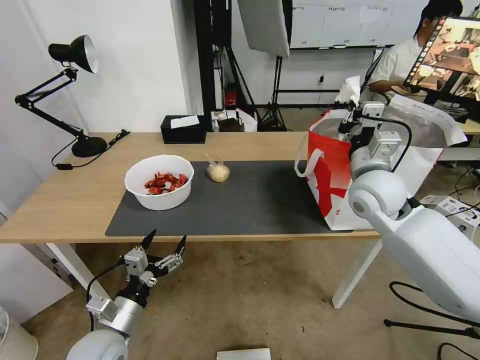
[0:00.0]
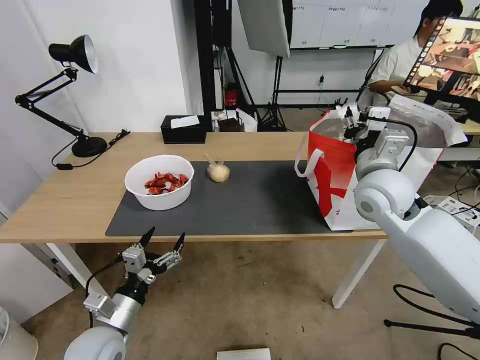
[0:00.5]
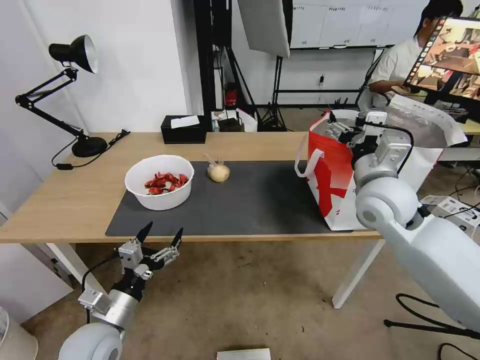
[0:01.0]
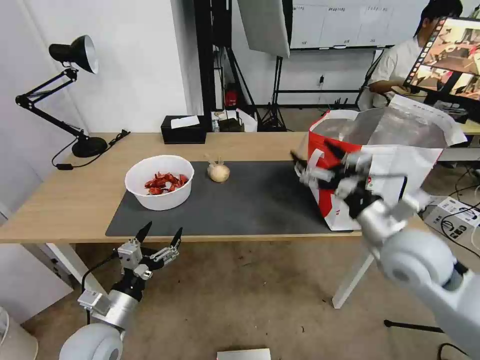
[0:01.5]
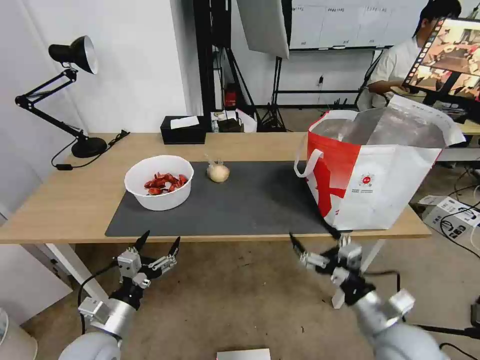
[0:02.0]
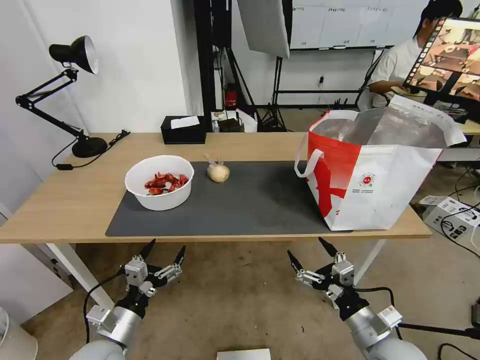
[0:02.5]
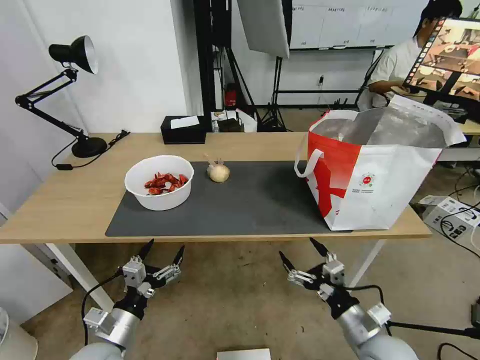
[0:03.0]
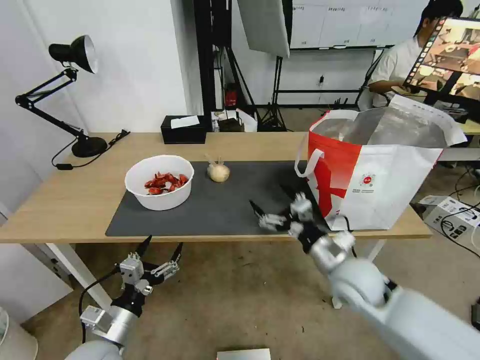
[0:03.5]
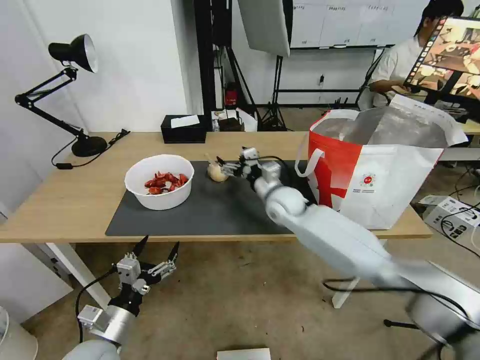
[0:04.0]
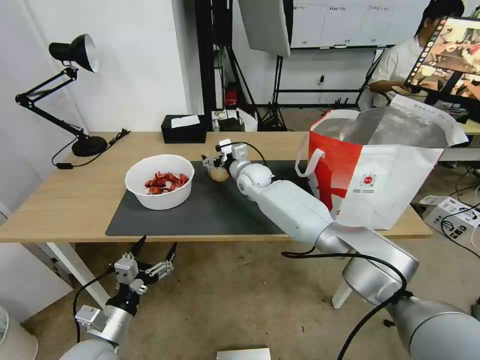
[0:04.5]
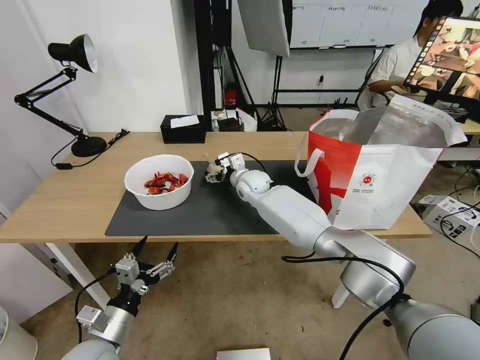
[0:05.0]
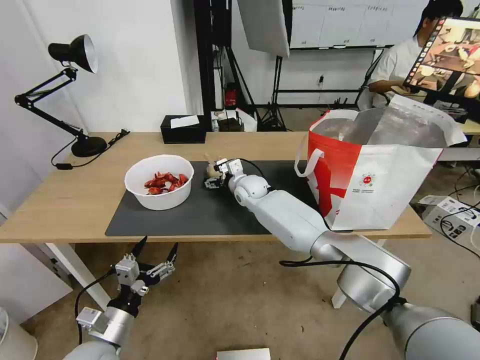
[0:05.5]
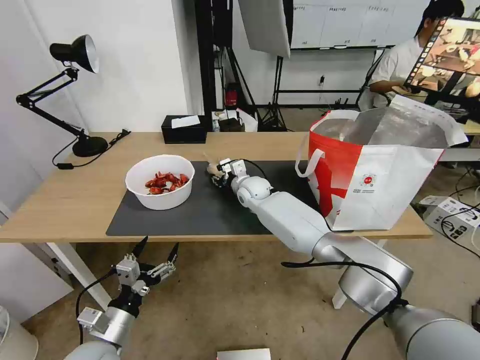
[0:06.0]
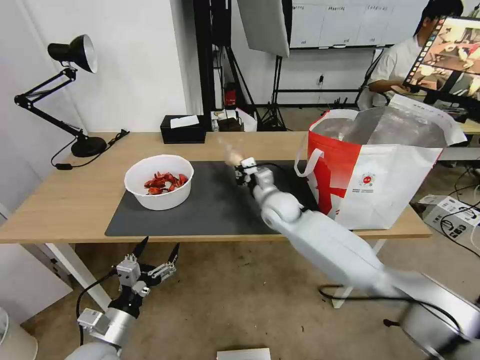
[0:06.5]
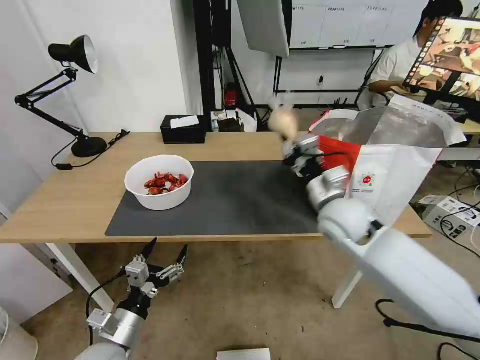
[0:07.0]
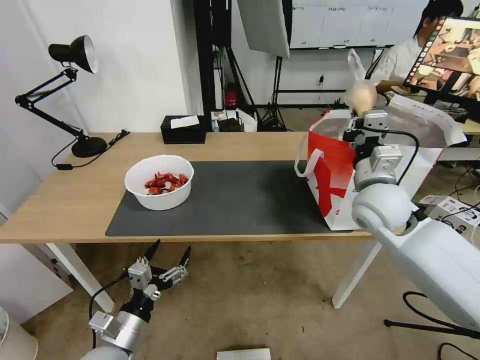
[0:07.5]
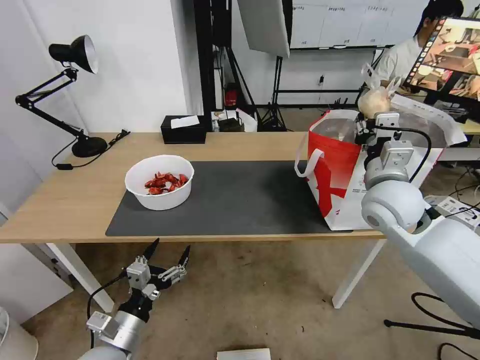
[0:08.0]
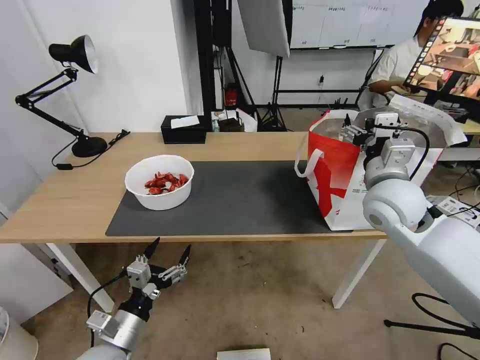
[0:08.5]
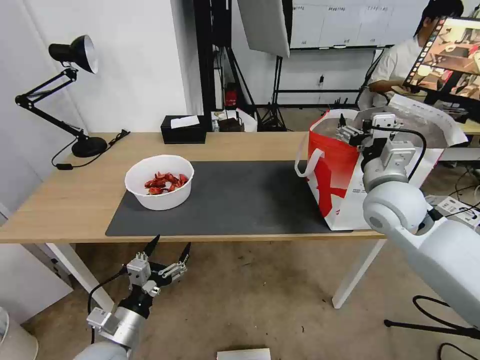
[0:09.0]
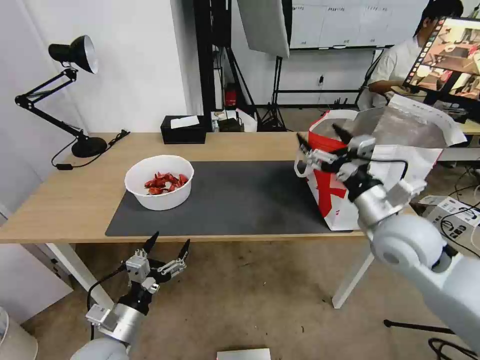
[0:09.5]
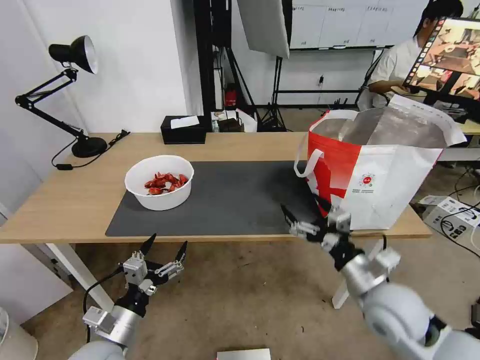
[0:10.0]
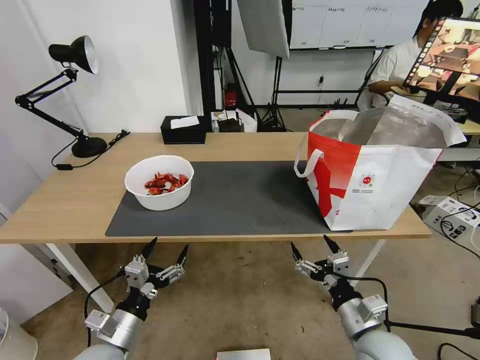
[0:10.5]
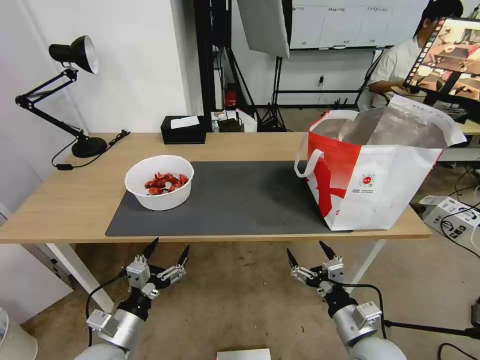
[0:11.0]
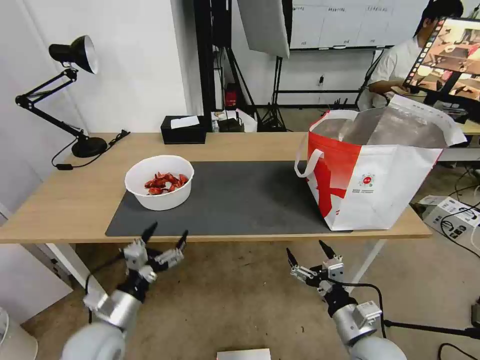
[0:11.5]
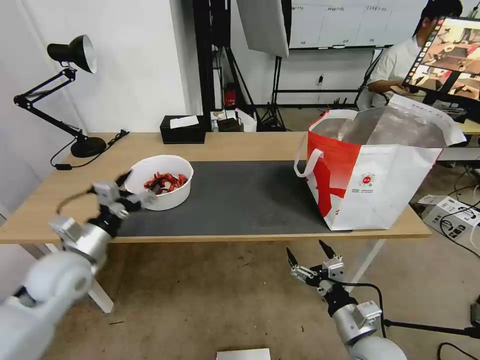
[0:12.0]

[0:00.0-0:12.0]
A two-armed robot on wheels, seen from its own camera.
Task of the whole recording: Pick up the trash from the table and place it into the takeout bag.
0:00.0 to 0:02.0: The right gripper is displaced backward and downward by about 30 cm, and opens its fingers.
0:02.0 to 0:04.0: The right gripper moves forward and to the left, approximately 35 cm.
0:04.0 to 0:06.0: The right gripper is displaced forward and to the left by approximately 10 cm, and closes up.
0:06.0 to 0:08.0: The right gripper is displaced to the right, backward and upward by roughly 35 cm, and closes and opens again.
0:08.0 to 0:10.0: The right gripper shifts about 20 cm backward and downward, and opens up.
0:10.0 to 0:12.0: The right gripper is displaced downward and backward by roughly 10 cm. Meanwhile the left gripper moves forward, upward and to the left, some 20 cm.

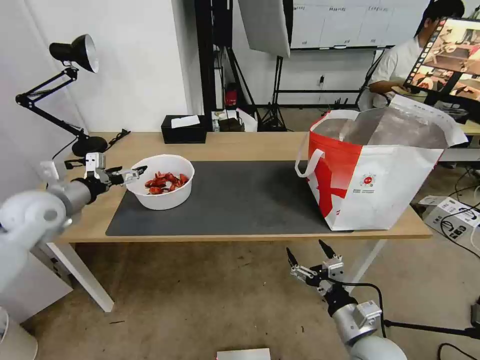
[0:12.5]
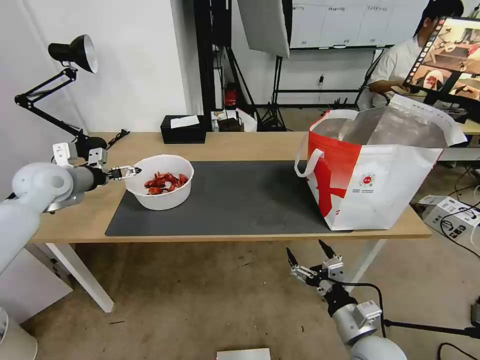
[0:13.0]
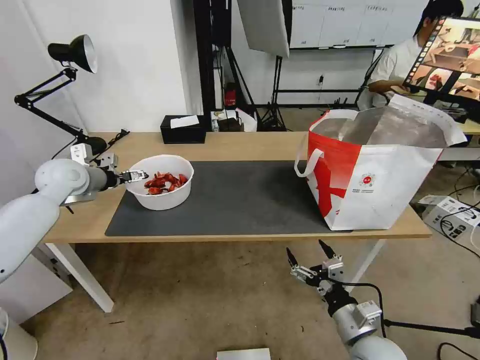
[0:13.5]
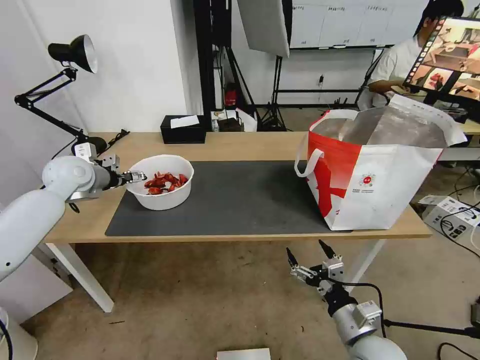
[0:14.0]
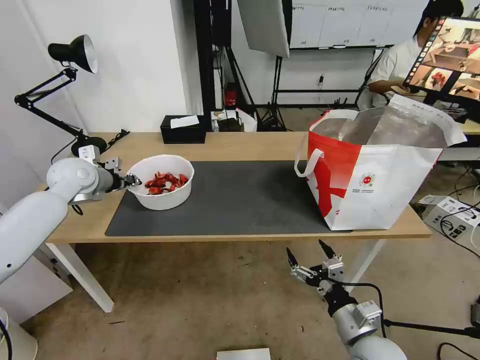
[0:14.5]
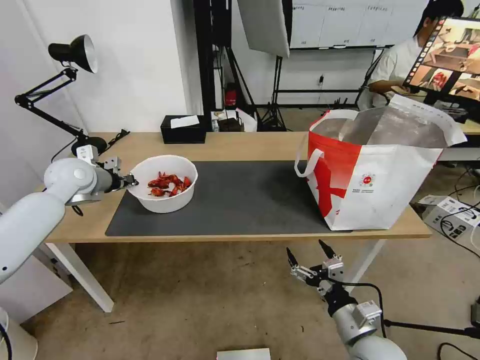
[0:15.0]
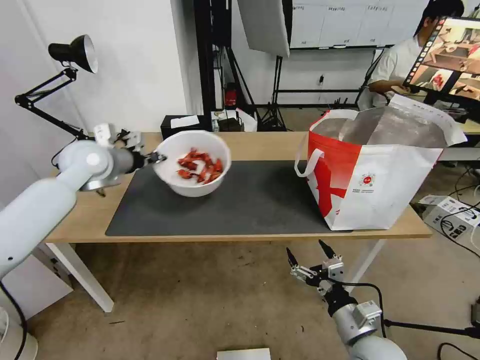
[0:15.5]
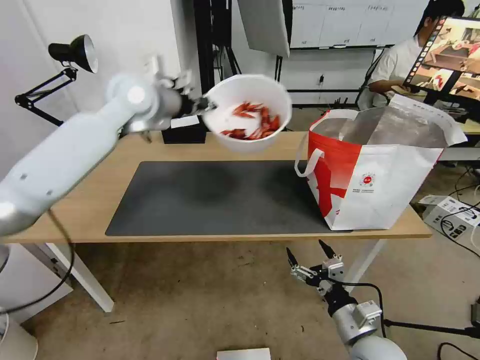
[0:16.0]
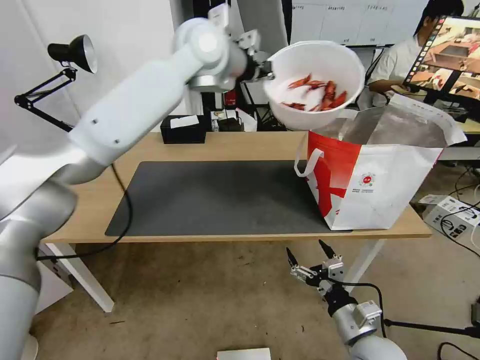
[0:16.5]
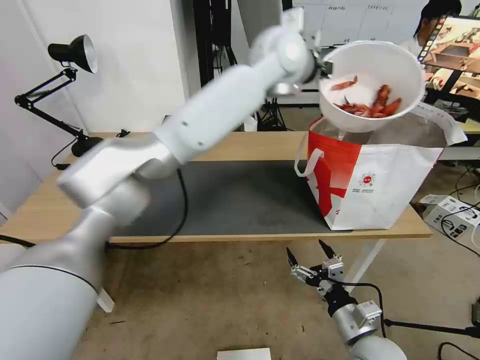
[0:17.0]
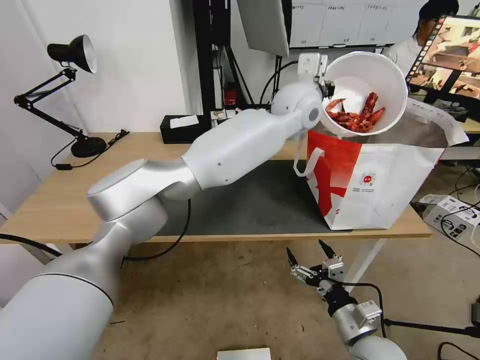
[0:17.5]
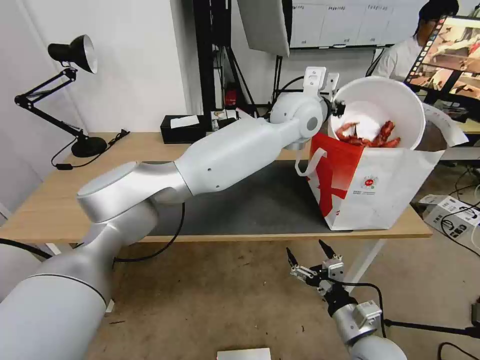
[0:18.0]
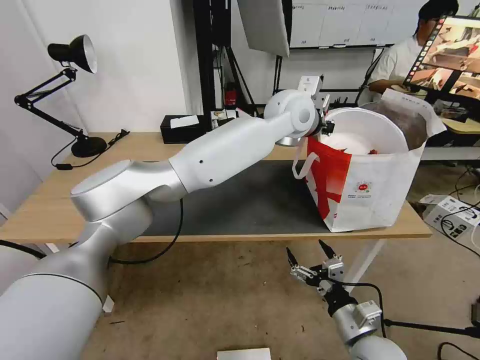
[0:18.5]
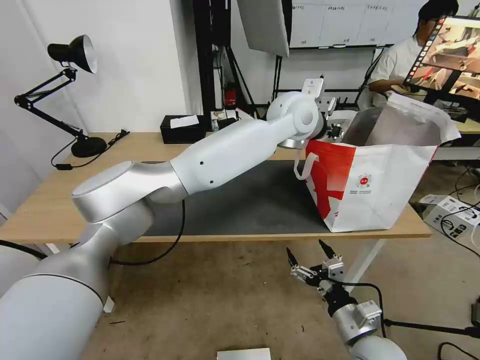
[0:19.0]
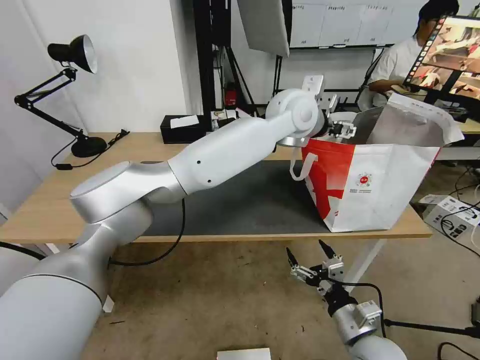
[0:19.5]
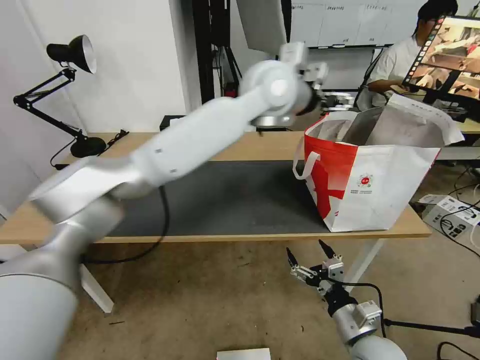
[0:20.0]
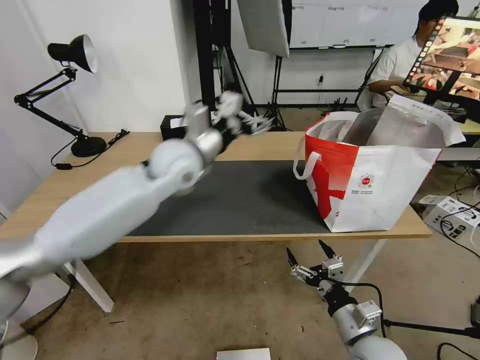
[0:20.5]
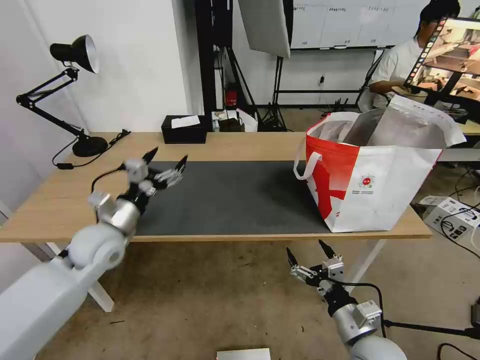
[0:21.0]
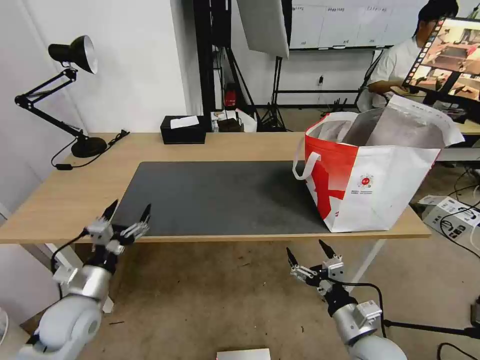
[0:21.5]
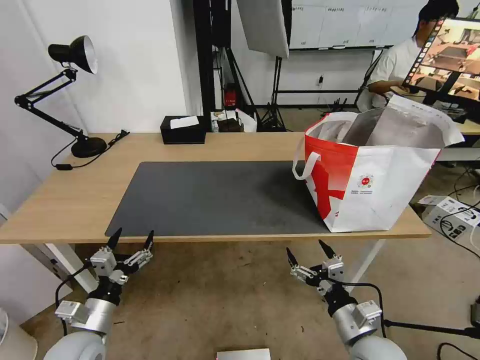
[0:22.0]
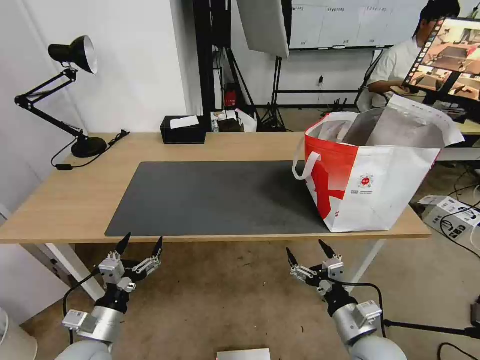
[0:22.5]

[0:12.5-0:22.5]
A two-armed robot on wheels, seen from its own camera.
Task of the whole recording: Pick up the trash from the table and place it into the takeout bag.
0:12.5 to 0:14.5: The left gripper heads forward, covering approximately 10 cm, and closes.
0:14.5 to 0:16.5: The left gripper moves to the right and upward, about 40 cm.
0:16.5 to 0:18.5: The left gripper shifts roughly 20 cm to the right and downward.
0:18.5 to 0:20.5: The left gripper moves to the left, about 25 cm, and opens.
0:20.5 to 0:22.5: The left gripper is displaced backward, downward and to the left by about 40 cm.

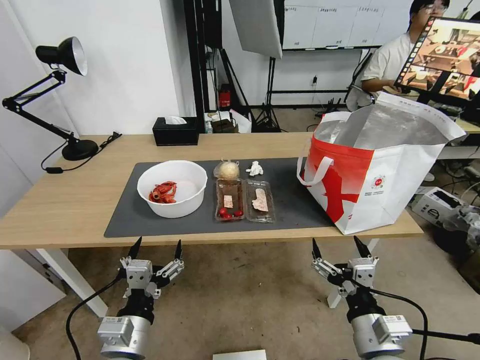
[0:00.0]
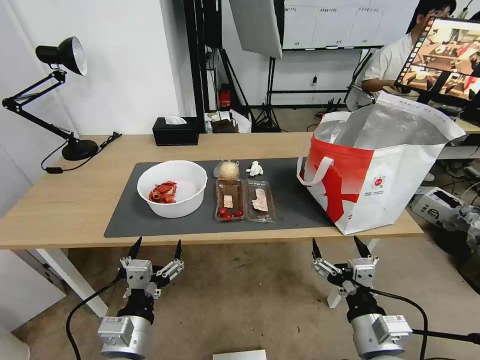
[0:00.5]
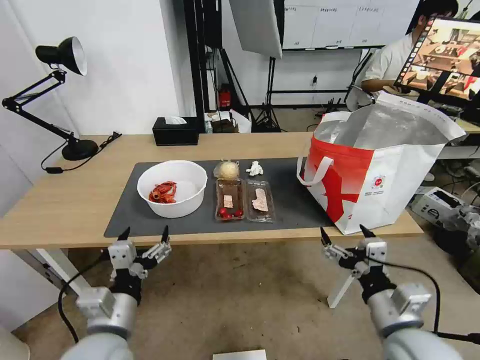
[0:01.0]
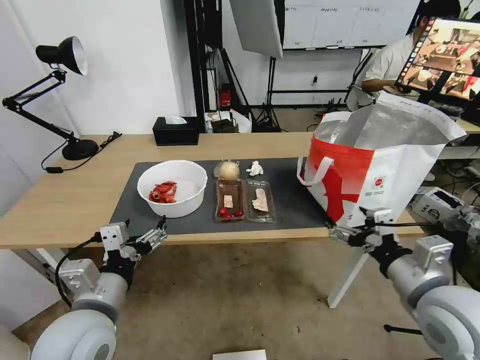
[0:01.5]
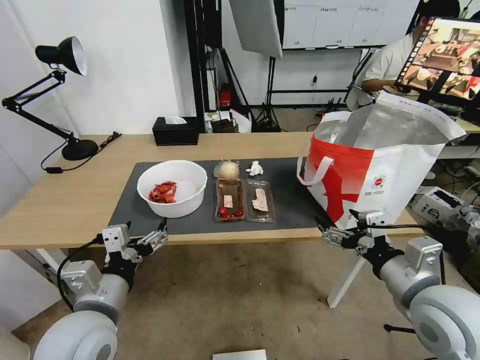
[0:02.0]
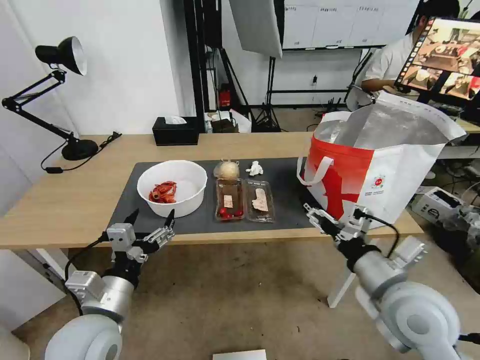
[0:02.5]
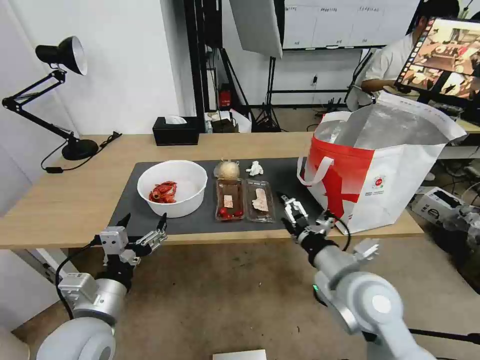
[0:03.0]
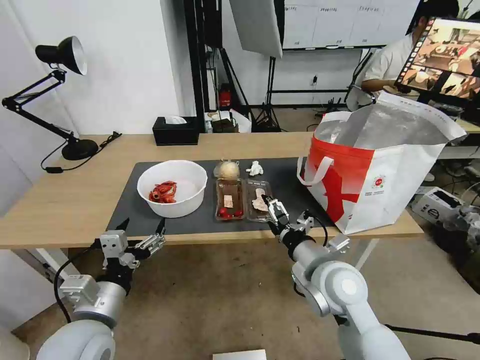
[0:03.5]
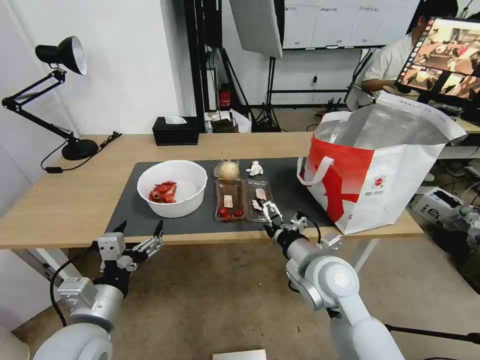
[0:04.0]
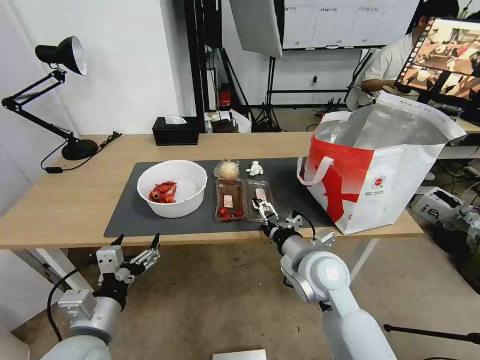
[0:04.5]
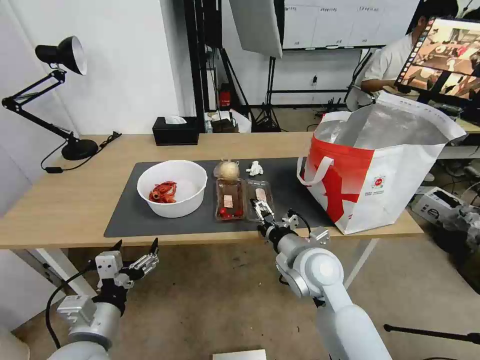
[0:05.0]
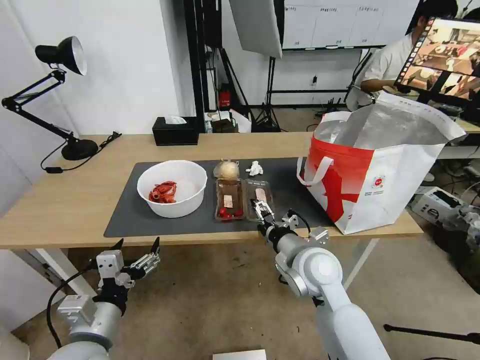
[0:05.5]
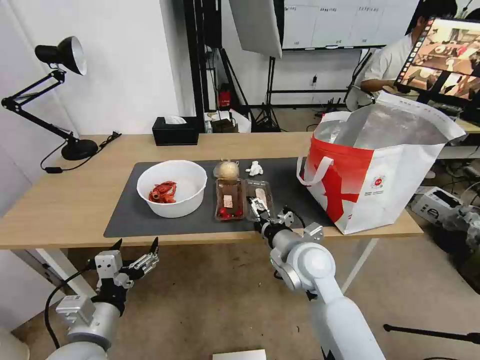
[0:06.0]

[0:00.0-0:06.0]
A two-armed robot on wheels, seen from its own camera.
Task of the whole recording: Pick up the trash from the table and place it into the takeout bag.
0:02.0 to 0:04.0: The right gripper moves to the left, forward and downward, about 15 cm.
0:04.0 to 0:06.0: The grippers make only small movements.
